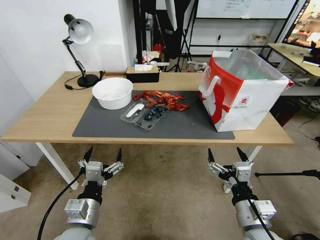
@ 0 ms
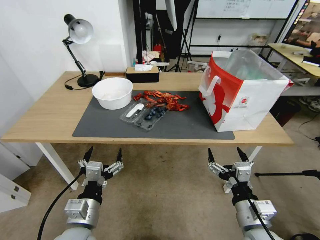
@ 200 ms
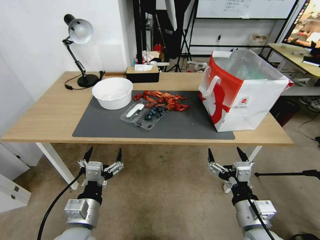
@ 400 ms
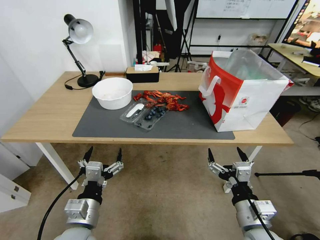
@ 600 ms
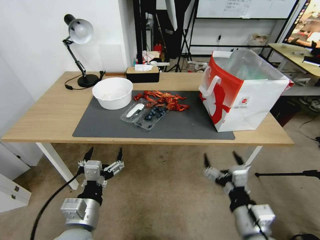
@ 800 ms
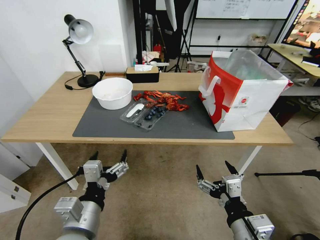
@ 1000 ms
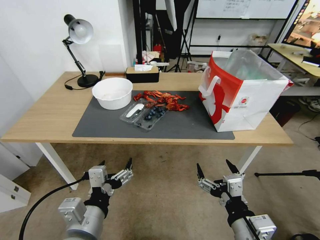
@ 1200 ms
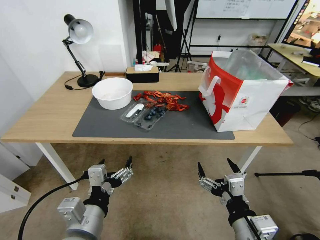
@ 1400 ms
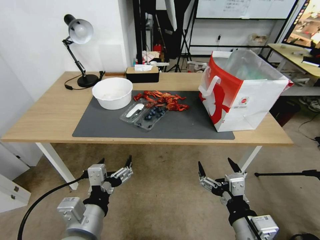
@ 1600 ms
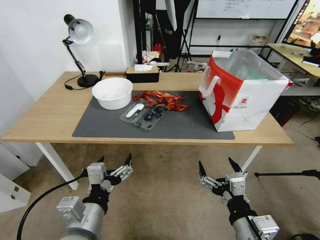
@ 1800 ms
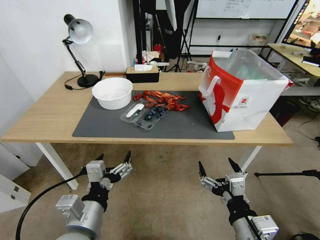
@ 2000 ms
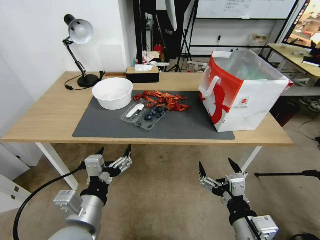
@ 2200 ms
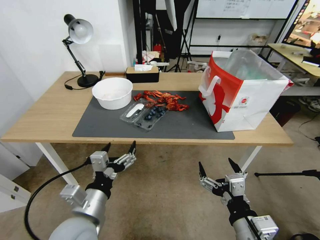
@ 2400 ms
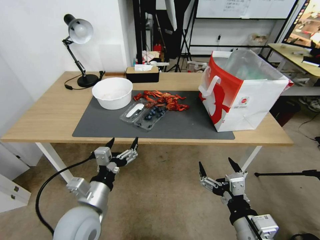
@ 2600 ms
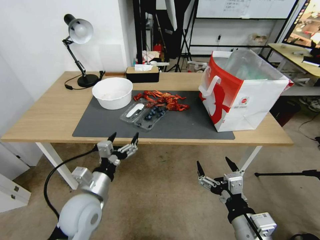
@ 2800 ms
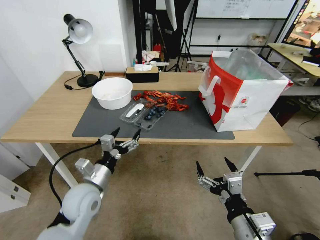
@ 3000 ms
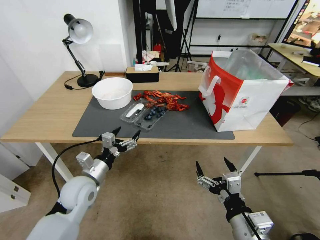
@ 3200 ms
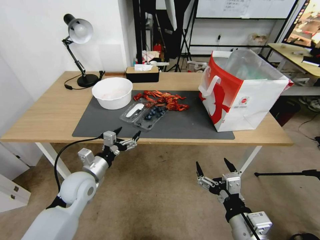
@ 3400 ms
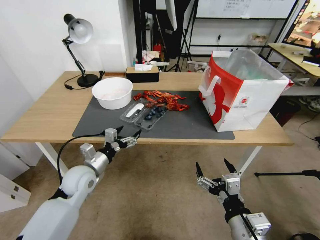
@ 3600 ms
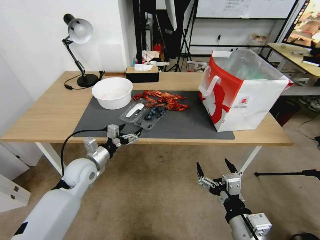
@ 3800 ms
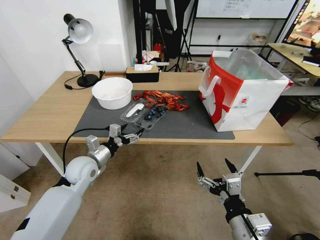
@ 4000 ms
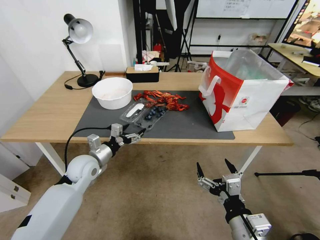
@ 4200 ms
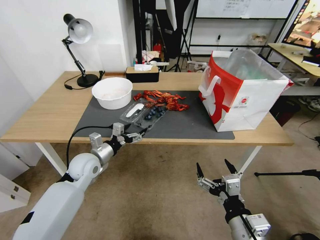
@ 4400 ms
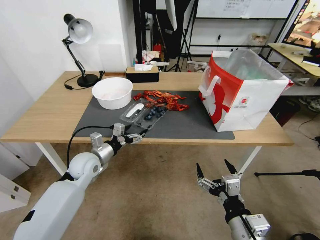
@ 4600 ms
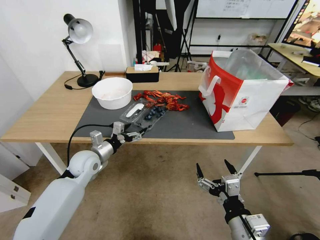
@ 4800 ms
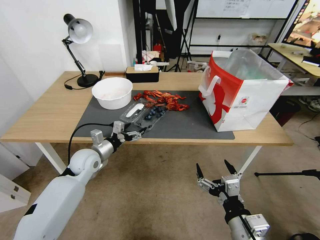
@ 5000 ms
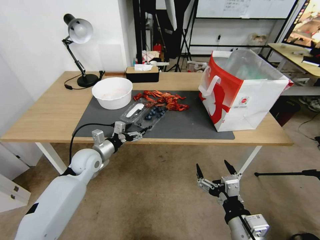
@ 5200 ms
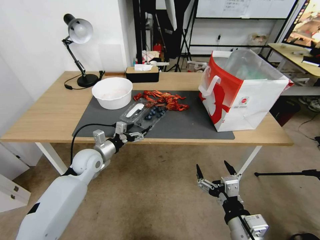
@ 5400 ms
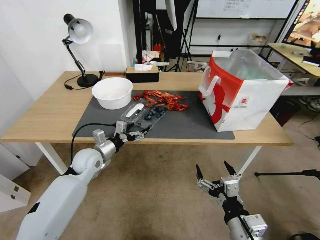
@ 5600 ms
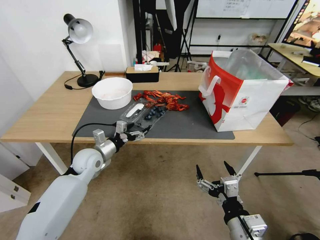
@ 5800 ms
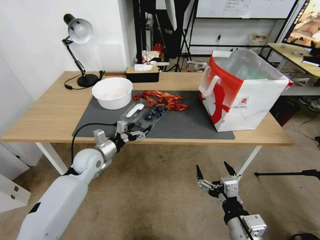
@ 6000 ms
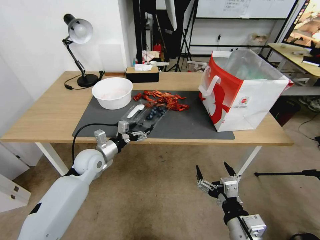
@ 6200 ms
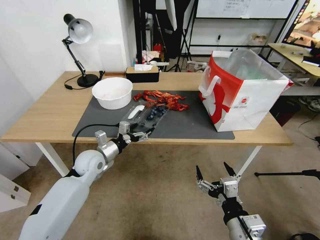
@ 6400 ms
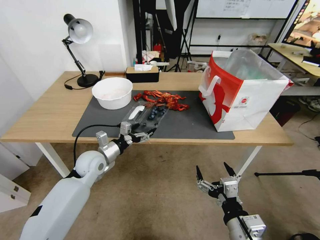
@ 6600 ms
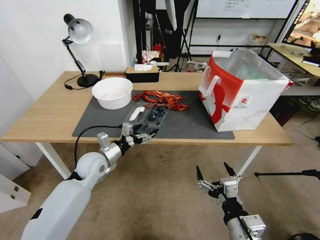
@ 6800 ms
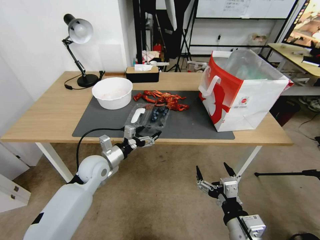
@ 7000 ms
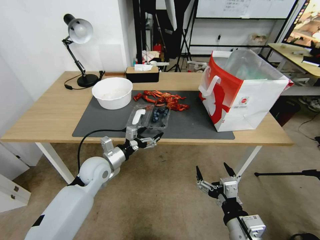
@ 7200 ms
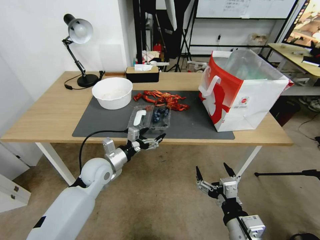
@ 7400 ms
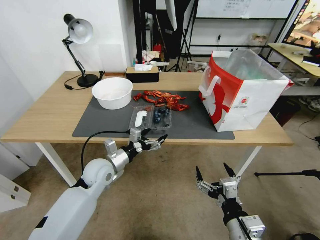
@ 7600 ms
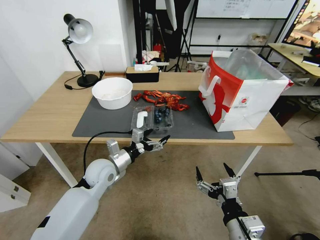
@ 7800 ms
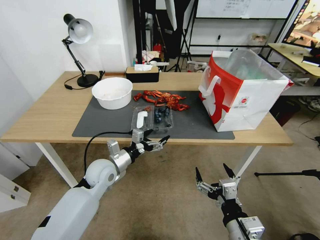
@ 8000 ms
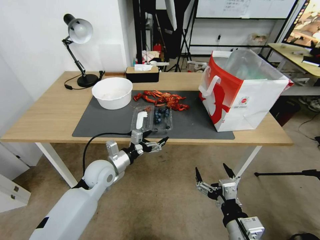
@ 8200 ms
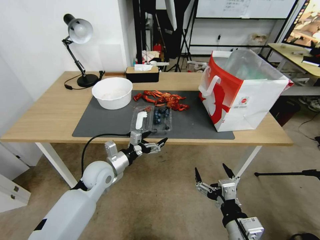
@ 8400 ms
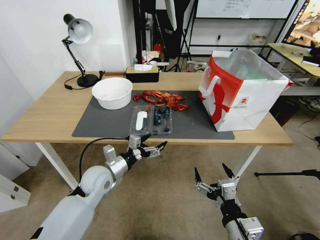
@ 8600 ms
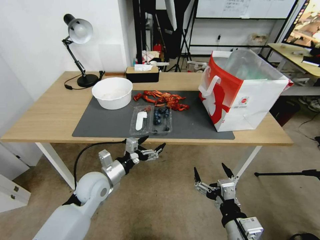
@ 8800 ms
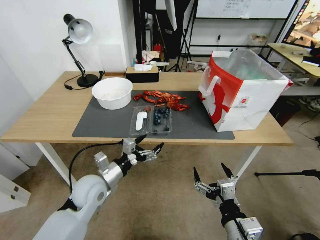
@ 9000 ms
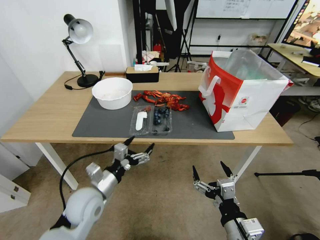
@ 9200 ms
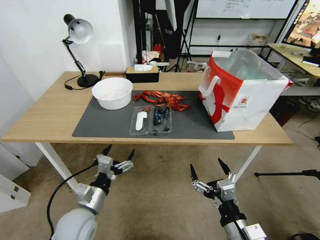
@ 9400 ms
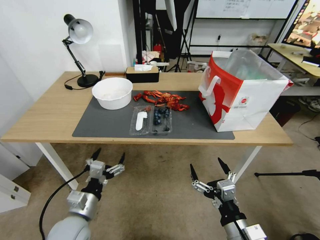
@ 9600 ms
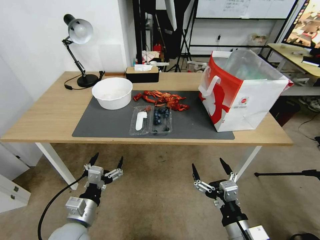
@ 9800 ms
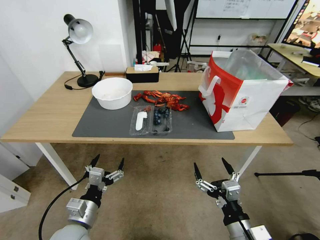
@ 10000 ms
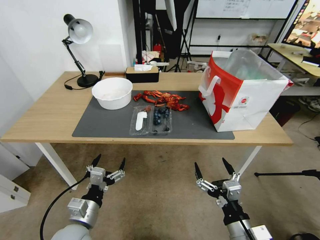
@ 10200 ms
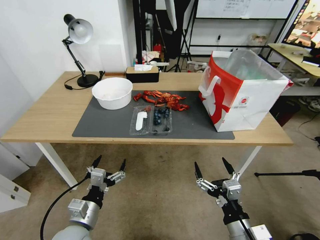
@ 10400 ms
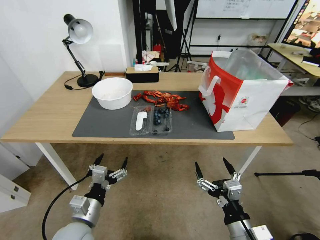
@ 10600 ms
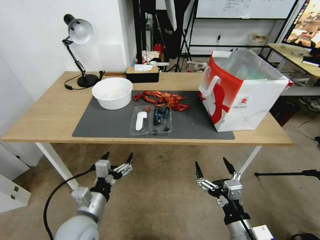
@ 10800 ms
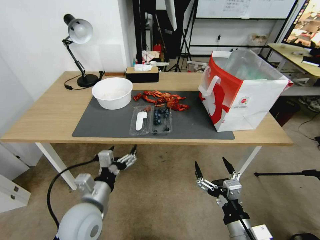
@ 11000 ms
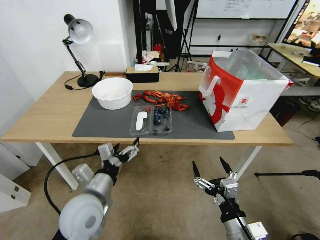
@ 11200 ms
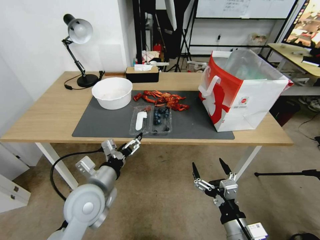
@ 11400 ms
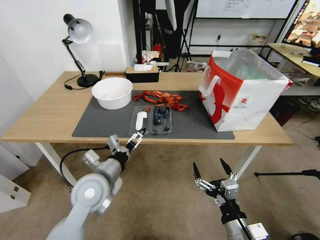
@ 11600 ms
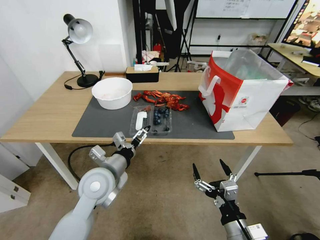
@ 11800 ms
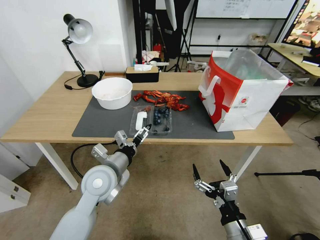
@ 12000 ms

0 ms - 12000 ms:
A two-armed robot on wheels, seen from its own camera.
Task of the whole recording: Close the takeout container lid, then place the container into the takeout bag.
1600 ms - 3000 ms: The left gripper travels forward and downward by some 15 cm.
3000 ms - 4400 ms: The left gripper heads forward, covering some 10 cm.
4400 ms - 6000 ms: The grippers make only small movements.
6000 ms - 7600 ms: The left gripper shifts some 5 cm to the right.
7600 ms - 9000 ms: The left gripper travels backward by approximately 5 cm.
9000 ms - 10400 ms: The left gripper shifts roughly 10 cm backward.
10400 ms - 12000 ms: The left gripper is displaced forward, upward and to the right by some 15 cm.

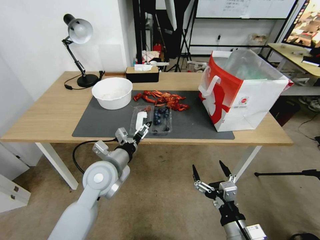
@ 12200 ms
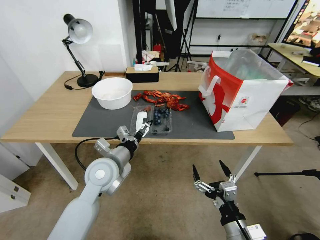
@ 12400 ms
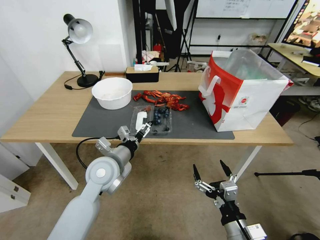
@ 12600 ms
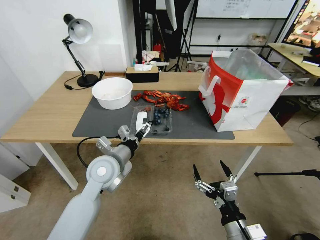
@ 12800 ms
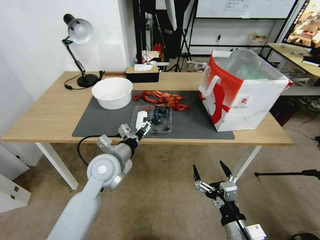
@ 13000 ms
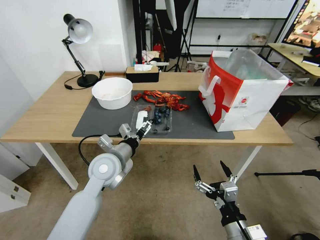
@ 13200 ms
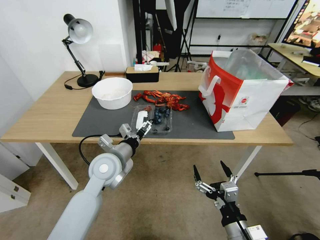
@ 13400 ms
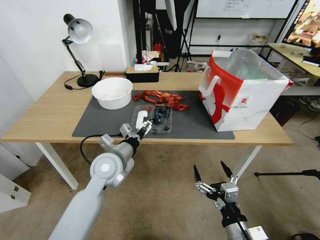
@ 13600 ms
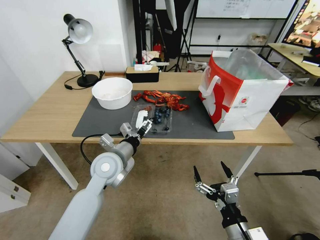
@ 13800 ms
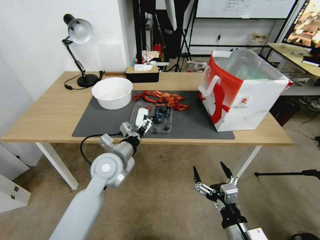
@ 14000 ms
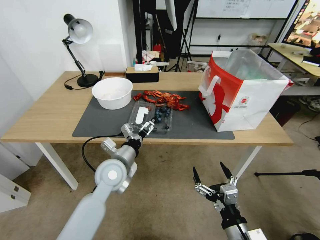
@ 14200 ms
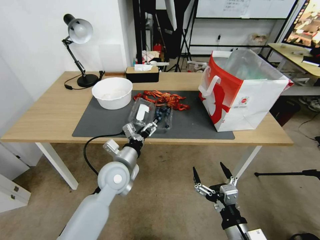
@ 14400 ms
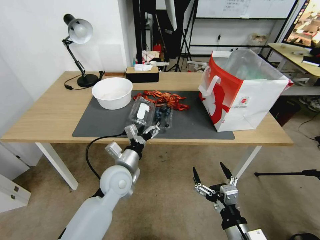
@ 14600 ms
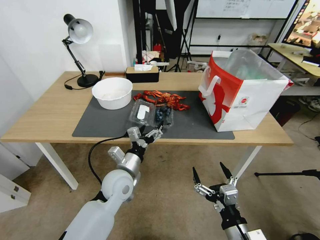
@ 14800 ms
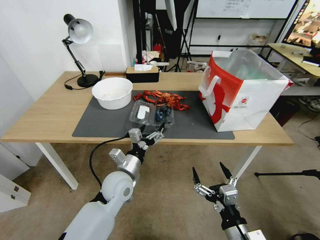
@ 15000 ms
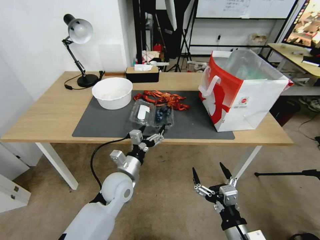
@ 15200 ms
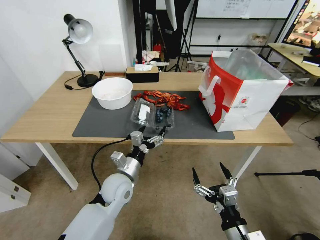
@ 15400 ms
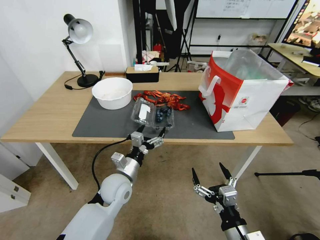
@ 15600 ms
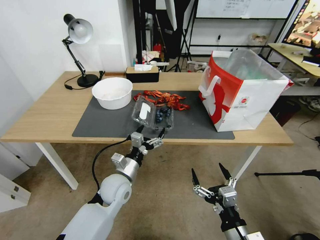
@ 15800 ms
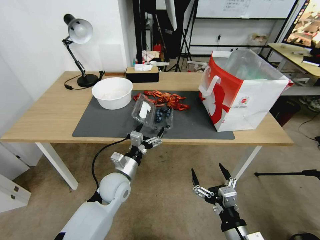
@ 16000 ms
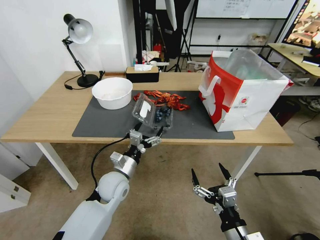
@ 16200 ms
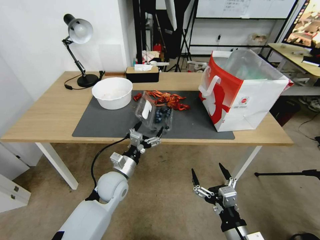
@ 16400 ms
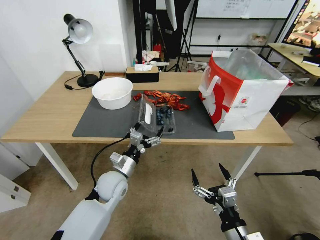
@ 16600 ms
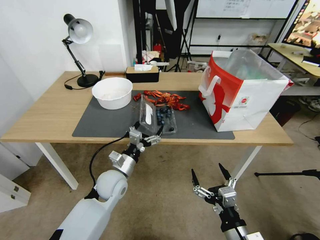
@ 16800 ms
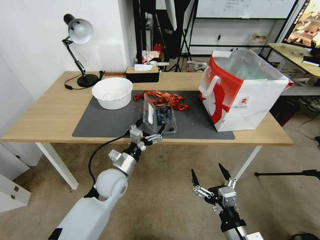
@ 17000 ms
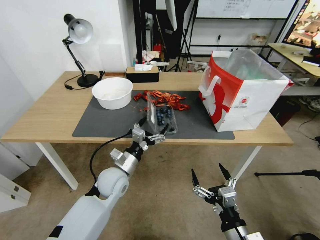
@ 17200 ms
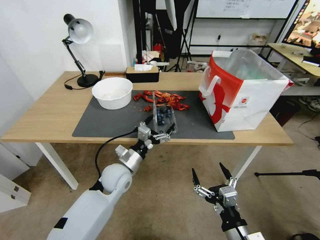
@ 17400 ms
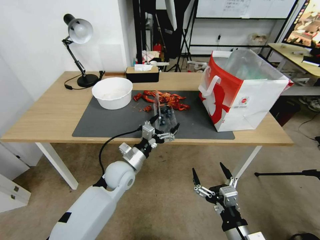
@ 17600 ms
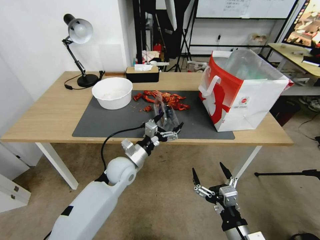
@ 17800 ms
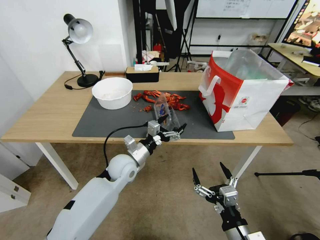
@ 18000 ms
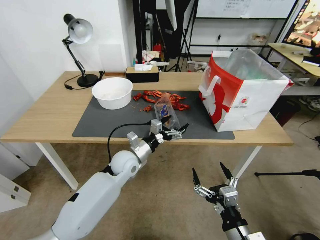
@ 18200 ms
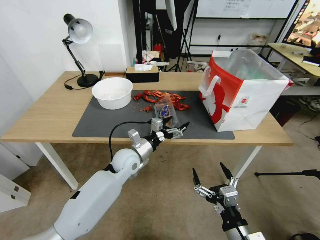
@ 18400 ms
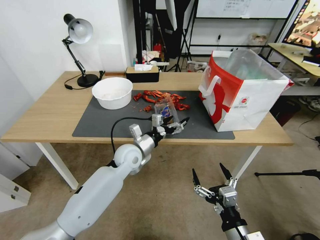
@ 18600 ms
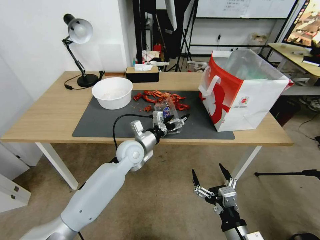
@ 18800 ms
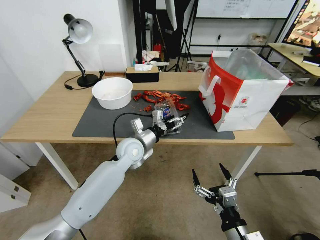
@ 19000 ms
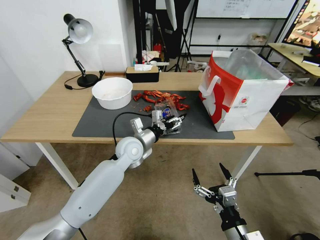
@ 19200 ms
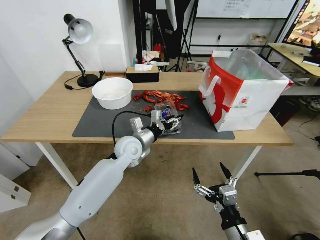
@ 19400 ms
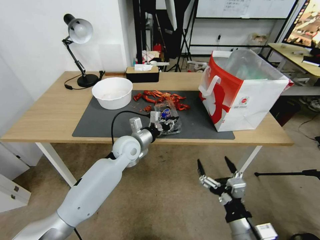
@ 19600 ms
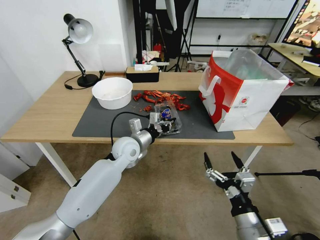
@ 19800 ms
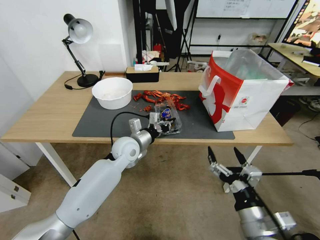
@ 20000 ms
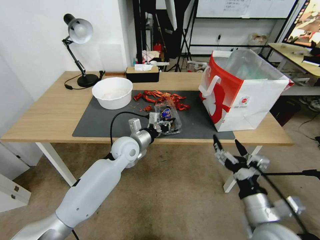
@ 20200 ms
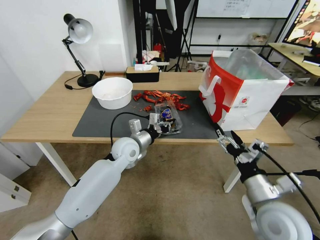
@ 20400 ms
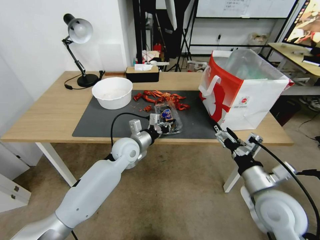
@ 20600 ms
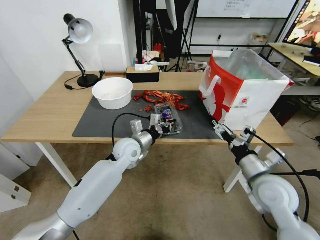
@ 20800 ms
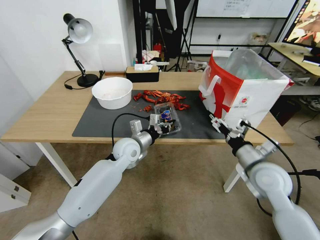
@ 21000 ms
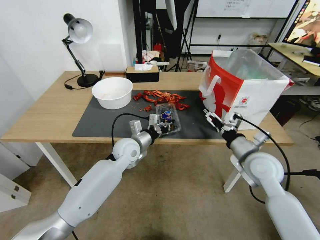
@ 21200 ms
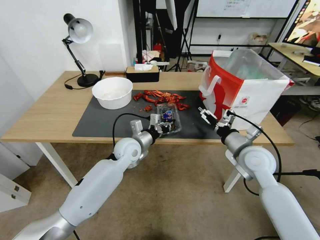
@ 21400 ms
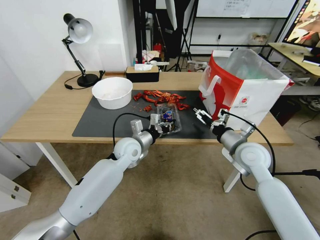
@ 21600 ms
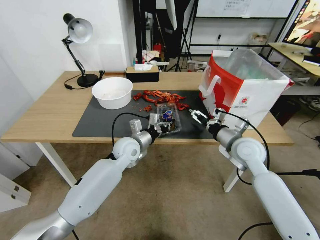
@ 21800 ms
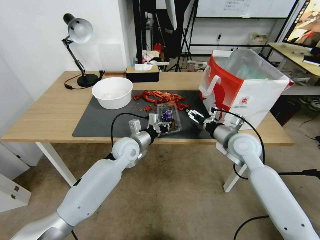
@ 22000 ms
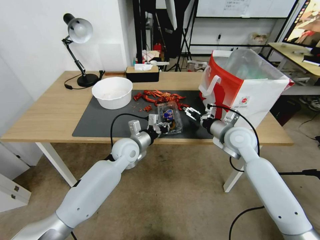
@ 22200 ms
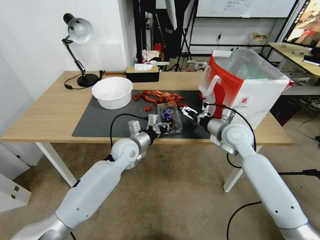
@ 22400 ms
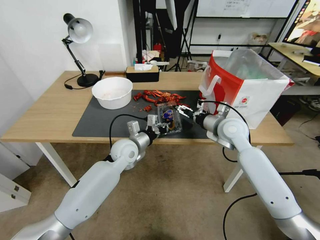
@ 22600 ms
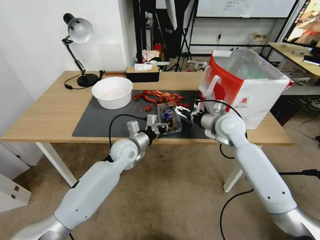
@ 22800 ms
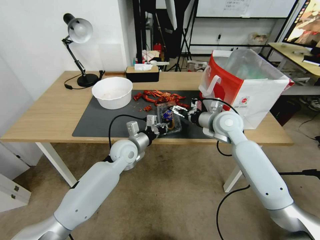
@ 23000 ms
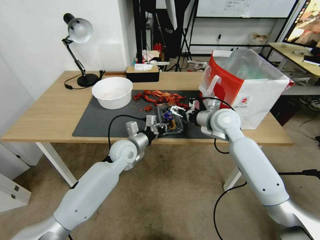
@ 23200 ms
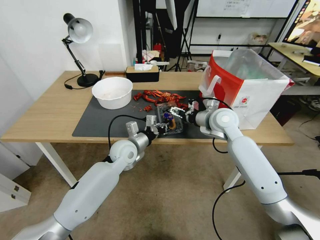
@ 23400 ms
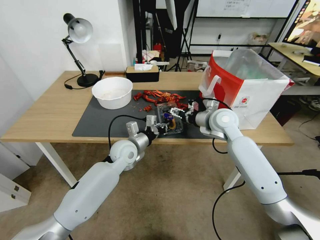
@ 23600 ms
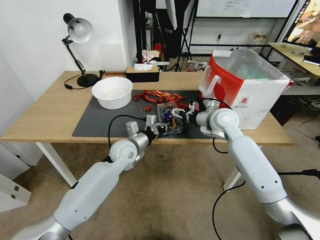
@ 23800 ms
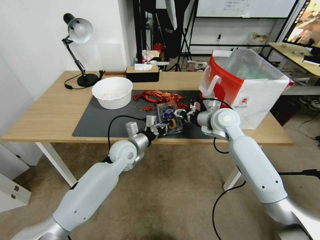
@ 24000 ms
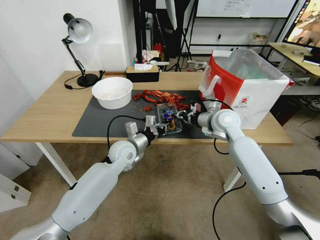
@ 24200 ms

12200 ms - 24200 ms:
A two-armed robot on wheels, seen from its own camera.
Task of the whole recording: Close the takeout container lid, then place the container into the takeout bag.
12200 ms - 13800 ms: The grippers move only a little.
13800 ms - 15200 ms: The left gripper travels downward by roughly 5 cm.
16600 ms - 18200 ms: The left gripper is displaced forward by some 5 cm.
18200 ms - 19800 ms: The left gripper changes place by some 5 cm, and closes its fingers.
19800 ms - 21200 ms: The right gripper travels forward by approximately 20 cm.
21200 ms - 22600 ms: The right gripper travels forward and to the left by some 15 cm.
22600 ms - 24200 ms: The right gripper closes its fingers.
